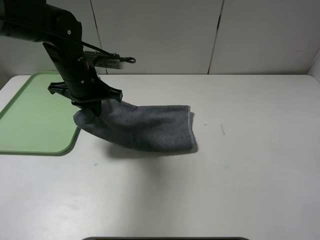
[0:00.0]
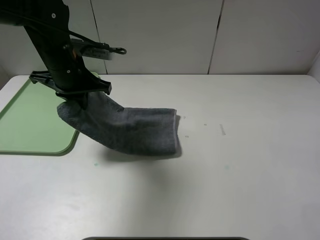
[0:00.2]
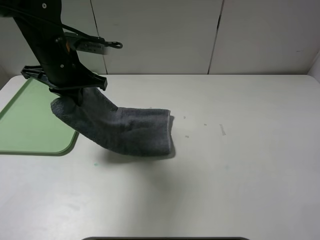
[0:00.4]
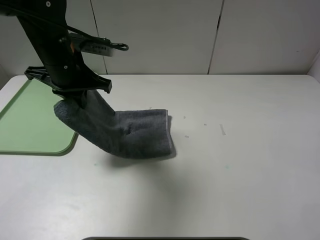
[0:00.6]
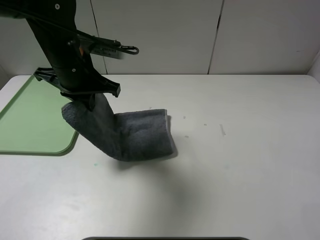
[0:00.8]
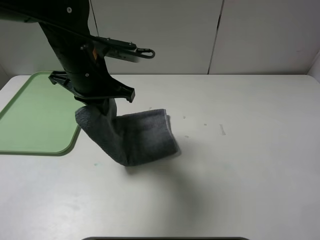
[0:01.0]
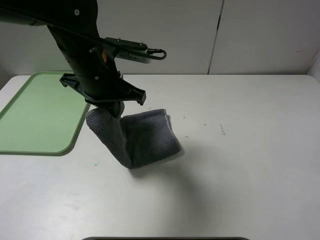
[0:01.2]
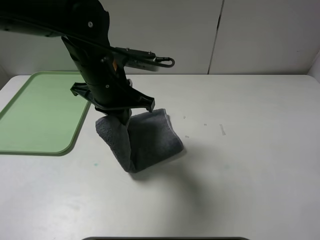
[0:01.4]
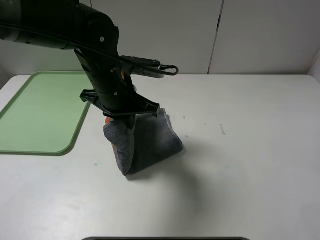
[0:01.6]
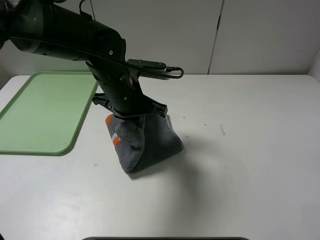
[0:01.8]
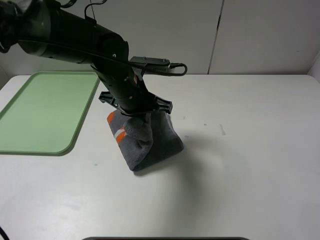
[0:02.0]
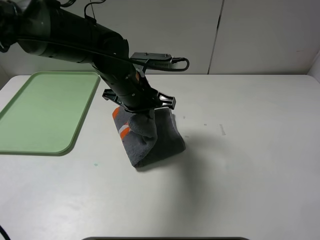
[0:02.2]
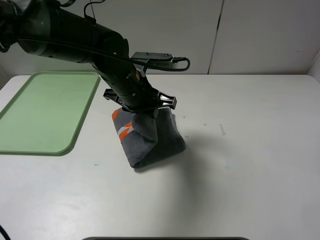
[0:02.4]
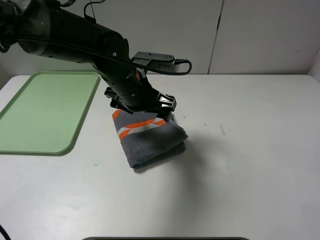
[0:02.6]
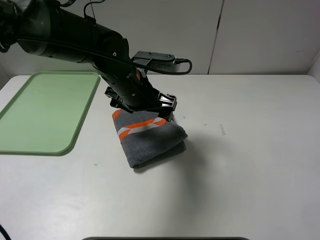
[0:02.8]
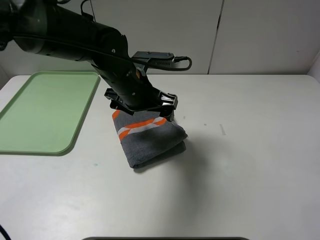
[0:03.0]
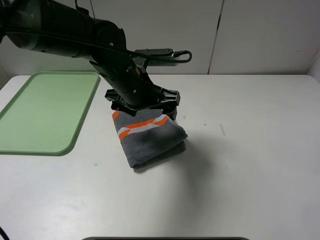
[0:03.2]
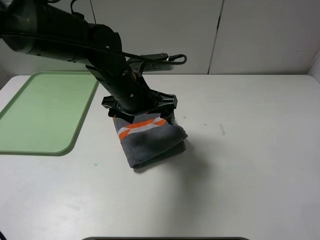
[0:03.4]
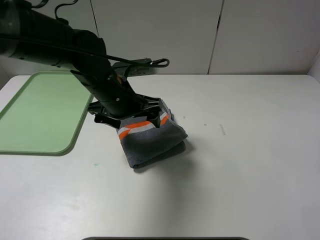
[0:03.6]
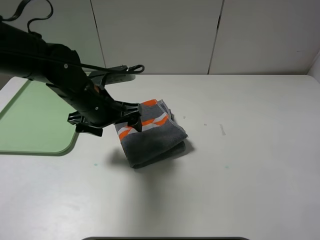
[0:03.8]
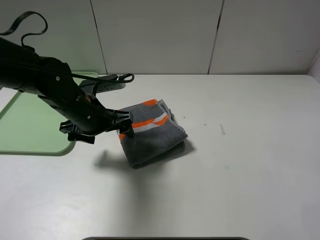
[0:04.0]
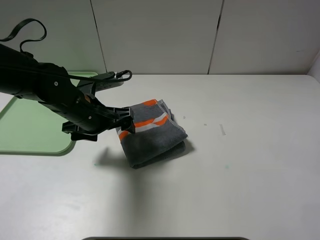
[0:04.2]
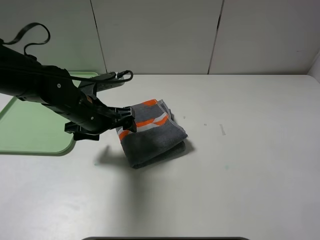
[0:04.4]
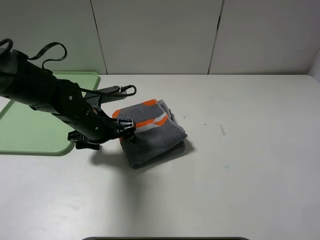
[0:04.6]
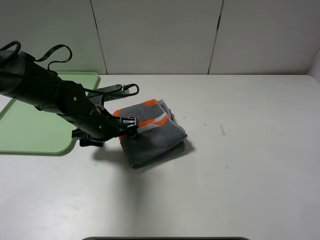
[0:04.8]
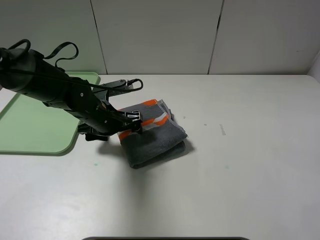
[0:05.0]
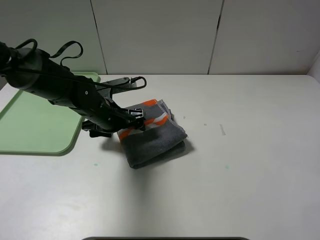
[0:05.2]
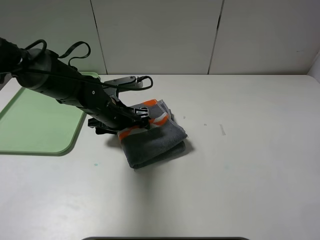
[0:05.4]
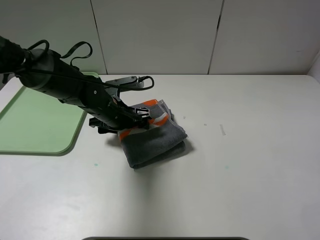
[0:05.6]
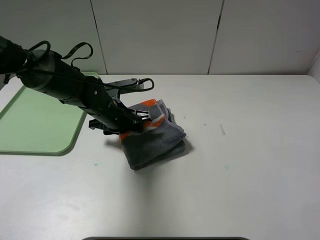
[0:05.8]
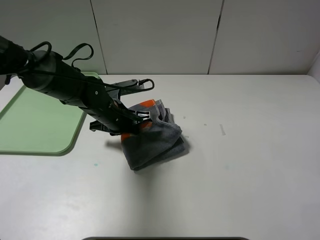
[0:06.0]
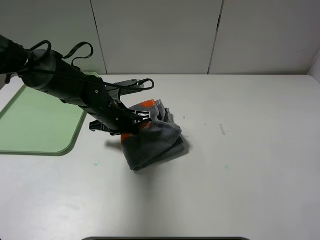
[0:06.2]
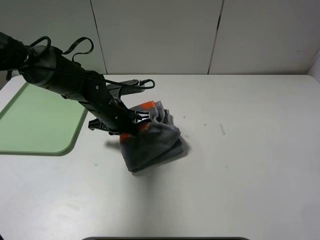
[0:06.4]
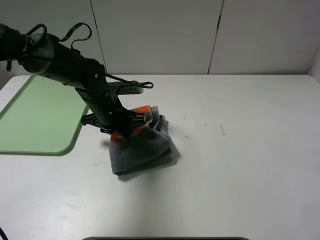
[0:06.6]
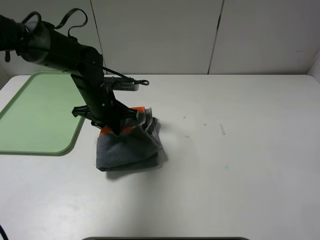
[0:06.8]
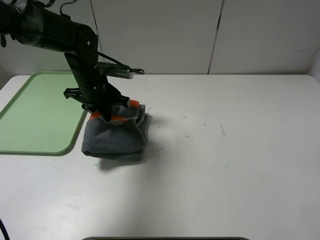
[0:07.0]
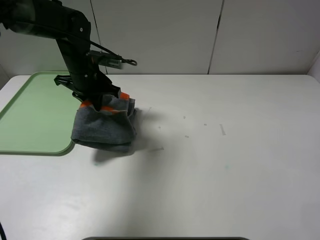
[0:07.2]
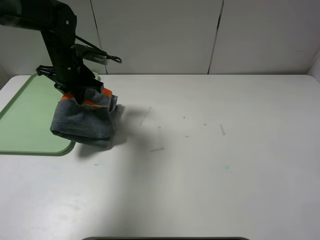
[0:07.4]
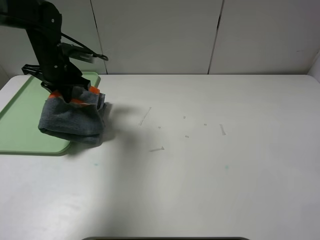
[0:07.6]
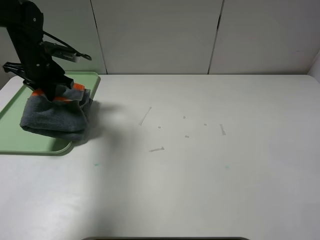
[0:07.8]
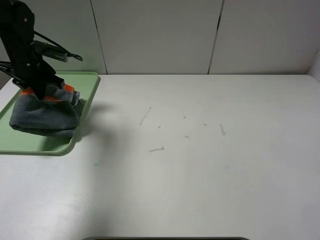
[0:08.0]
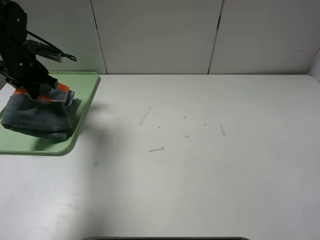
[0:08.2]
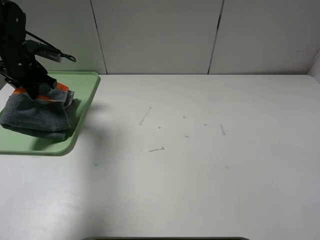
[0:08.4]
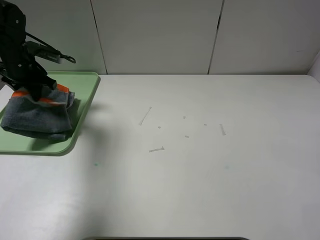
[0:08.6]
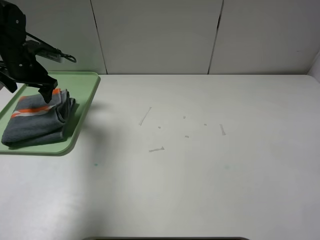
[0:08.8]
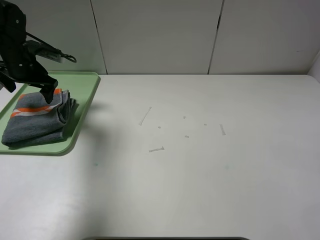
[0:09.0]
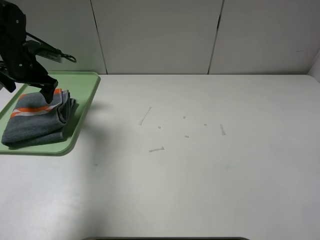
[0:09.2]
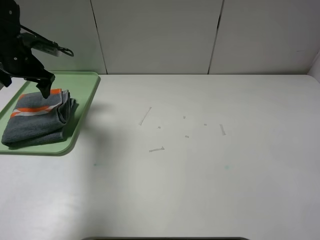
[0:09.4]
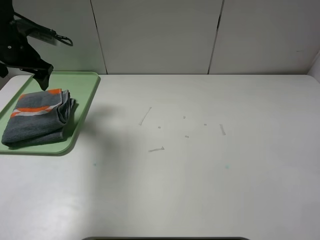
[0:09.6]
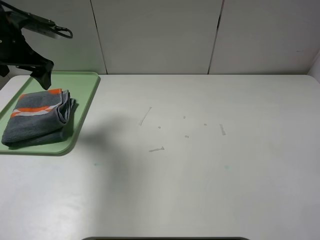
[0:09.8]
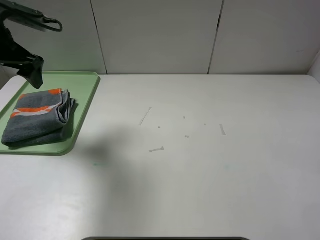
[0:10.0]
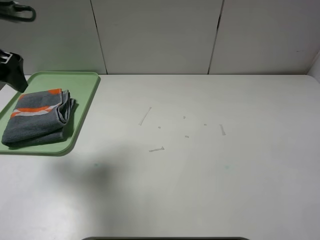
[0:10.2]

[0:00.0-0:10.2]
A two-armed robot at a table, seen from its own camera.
Step, 0:00.0 to 0:02.4: Fold the grey towel from left to right with left gripper.
Step, 0:02.6 to 0:08.8: Place the folded grey towel on the tray with the left gripper.
0:00.0 to 0:01.4: The left gripper heads to the right and backward, covering about 10 cm.
0:01.4 to 0:03.0: The left gripper opens its fingers.
0:03.0 to 0:04.4: The left gripper shifts some 10 cm to the left and downward.
0:04.4 to 0:05.8: The left gripper moves approximately 5 cm, and closes its fingers.
0:05.8 to 0:07.2: The left gripper is displaced upward, forward and to the left by approximately 15 cm.
0:07.2 to 0:08.8: The left gripper heads to the left, covering roughly 15 cm, and opens.
0:08.8 to 0:10.2: The left gripper is displaced backward and upward by roughly 20 cm.

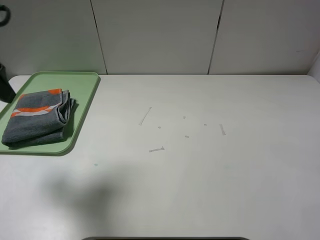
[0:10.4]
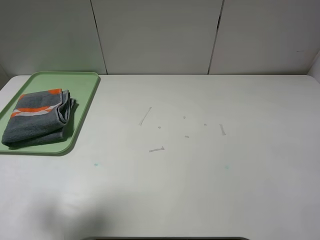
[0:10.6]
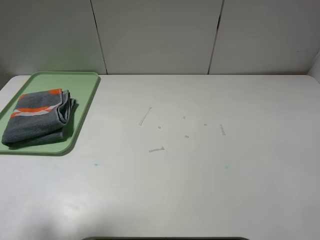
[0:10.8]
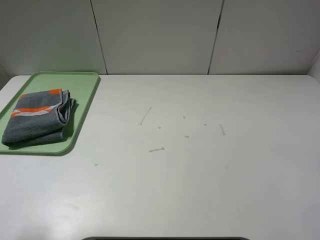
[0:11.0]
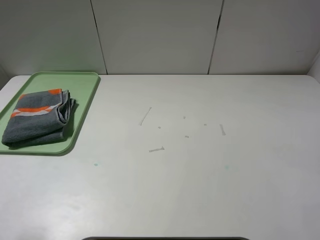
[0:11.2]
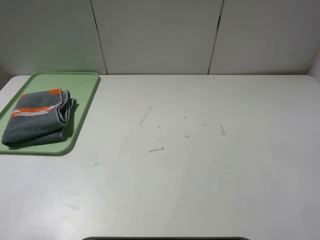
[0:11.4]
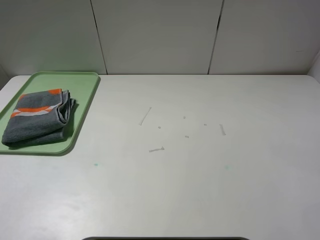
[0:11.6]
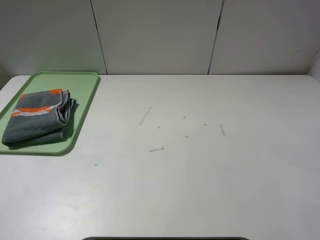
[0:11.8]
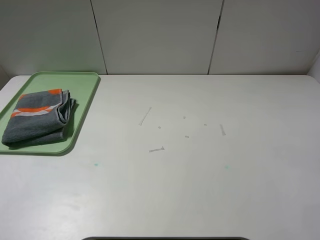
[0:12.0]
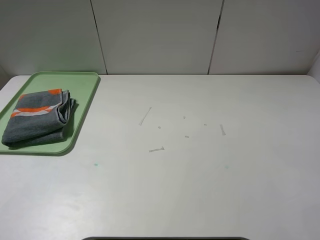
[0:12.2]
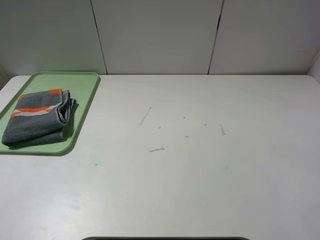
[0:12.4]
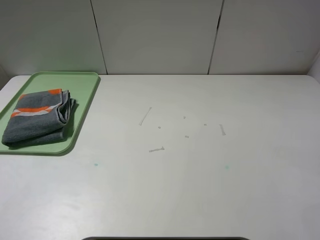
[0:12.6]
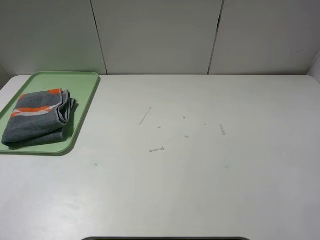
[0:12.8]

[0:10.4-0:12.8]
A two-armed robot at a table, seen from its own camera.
0:10.4 to 0:11.6: The left gripper heads backward, covering some 15 cm.
